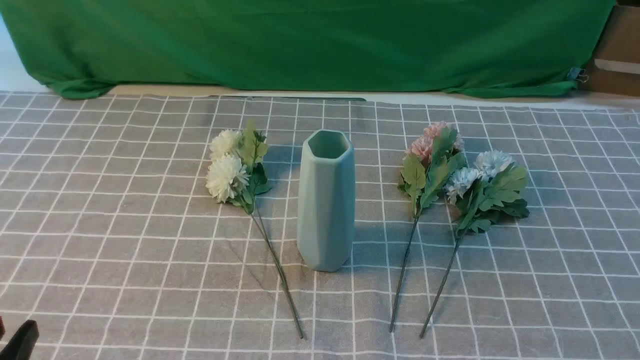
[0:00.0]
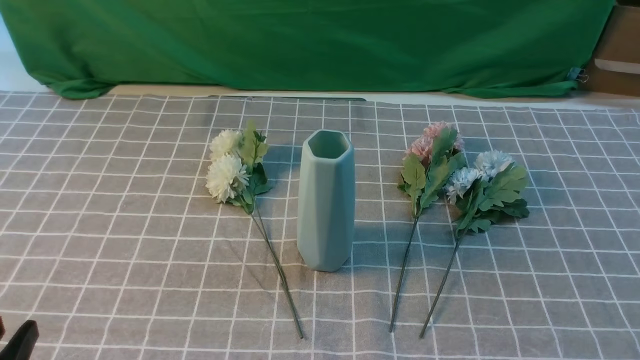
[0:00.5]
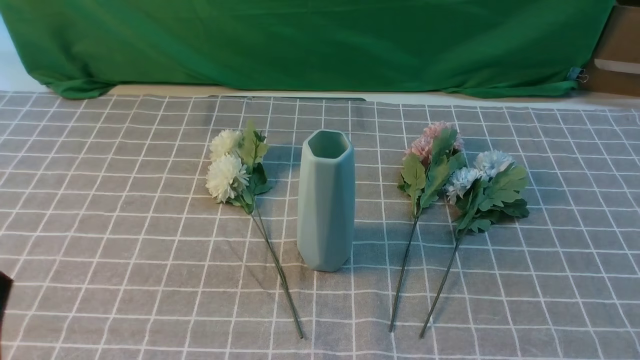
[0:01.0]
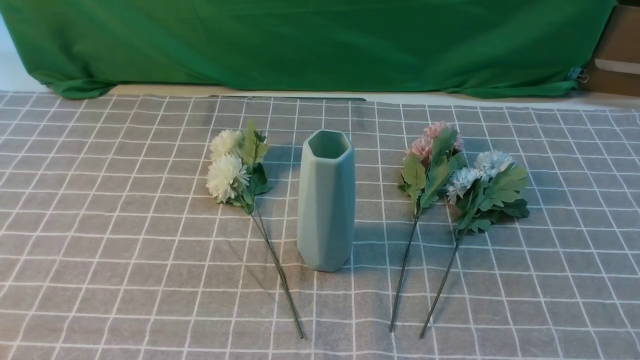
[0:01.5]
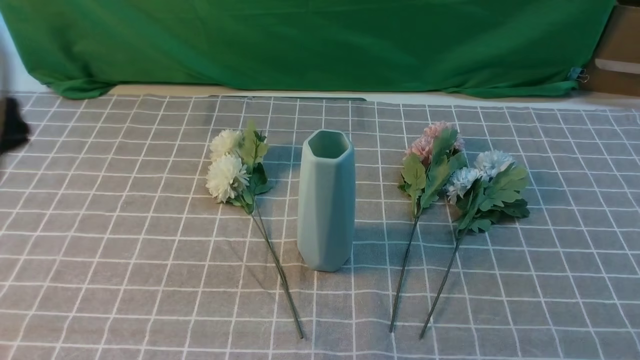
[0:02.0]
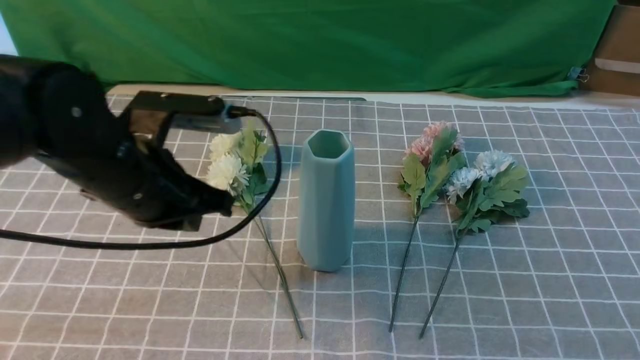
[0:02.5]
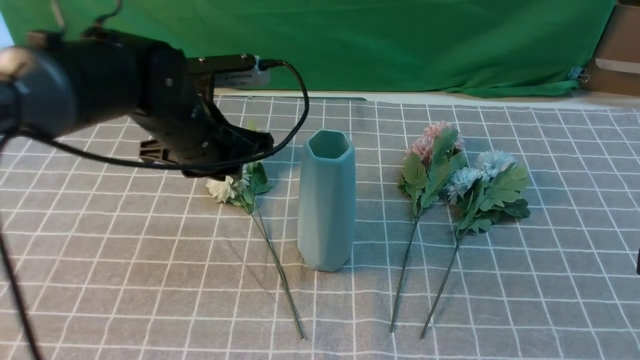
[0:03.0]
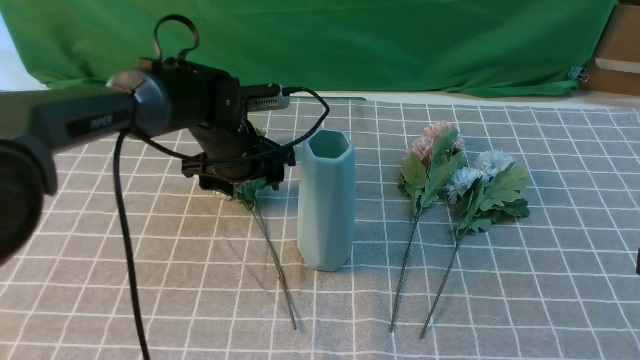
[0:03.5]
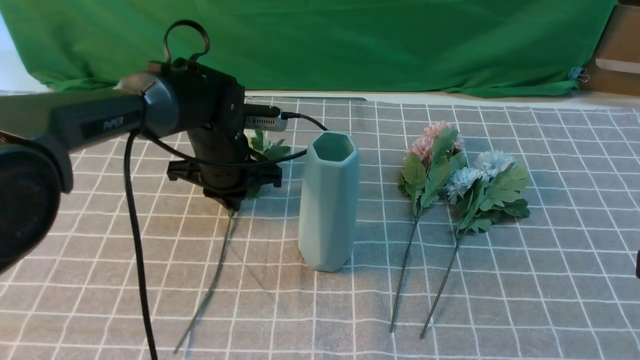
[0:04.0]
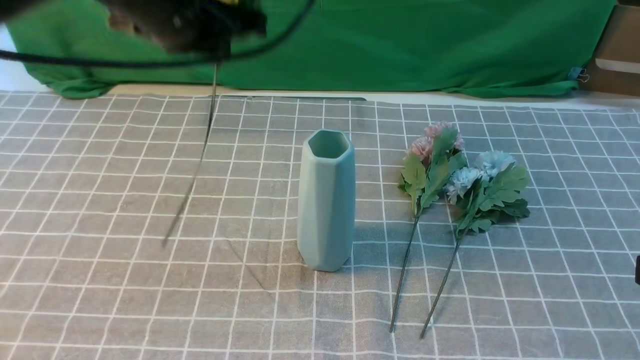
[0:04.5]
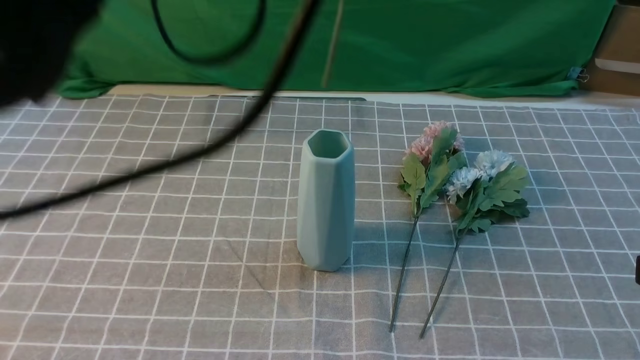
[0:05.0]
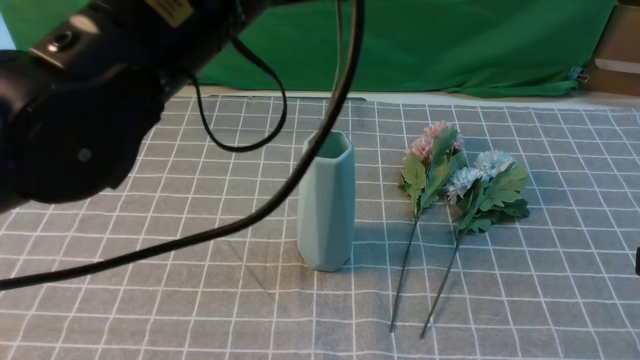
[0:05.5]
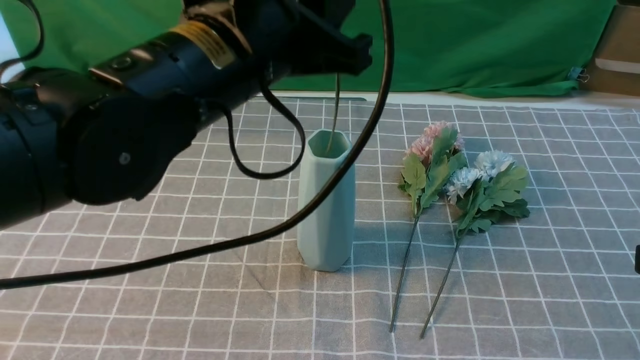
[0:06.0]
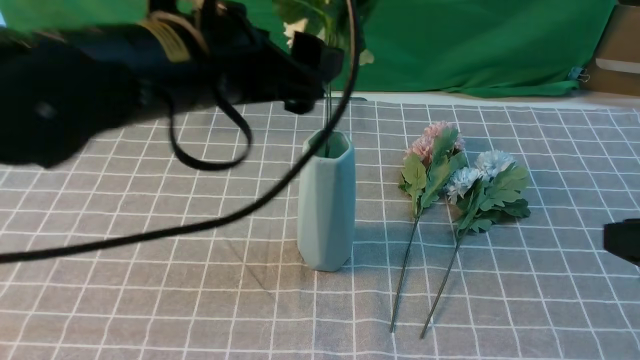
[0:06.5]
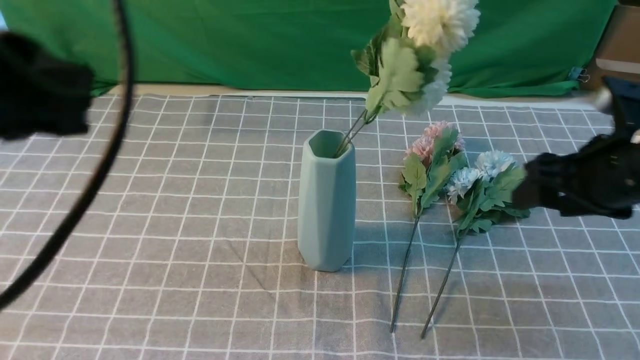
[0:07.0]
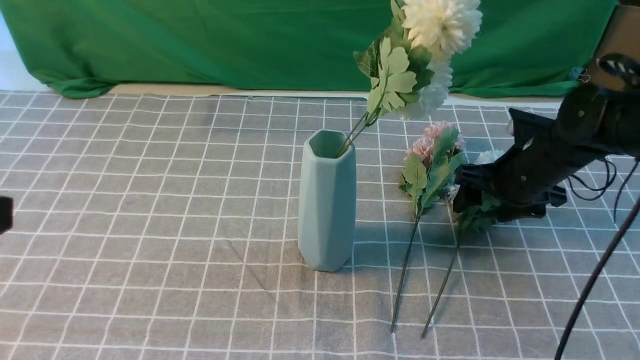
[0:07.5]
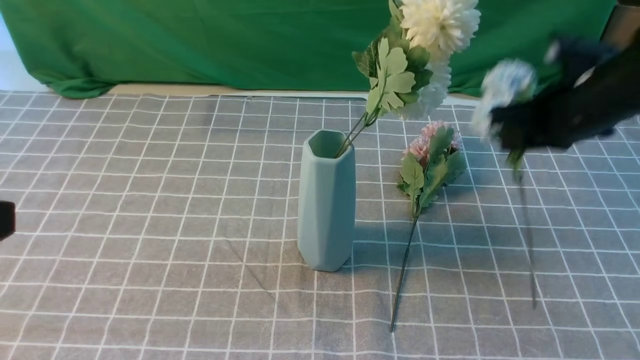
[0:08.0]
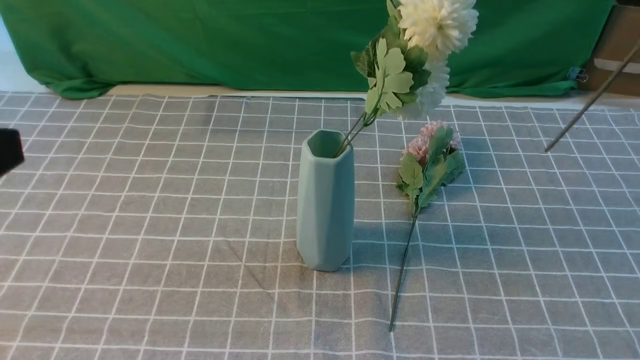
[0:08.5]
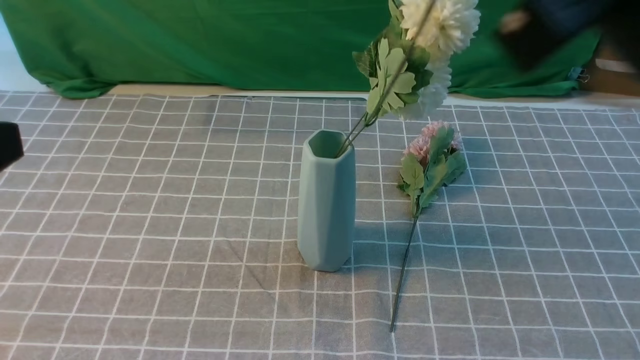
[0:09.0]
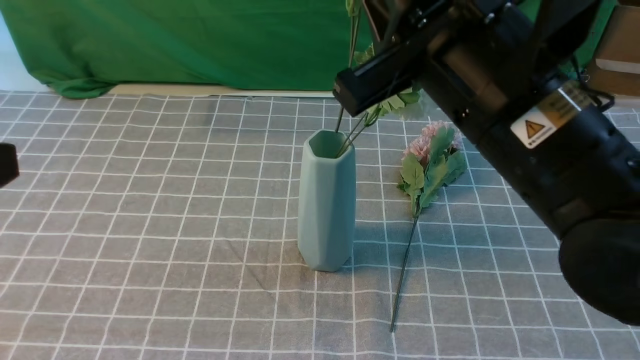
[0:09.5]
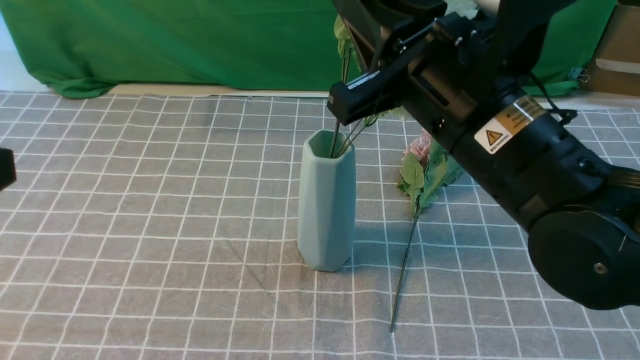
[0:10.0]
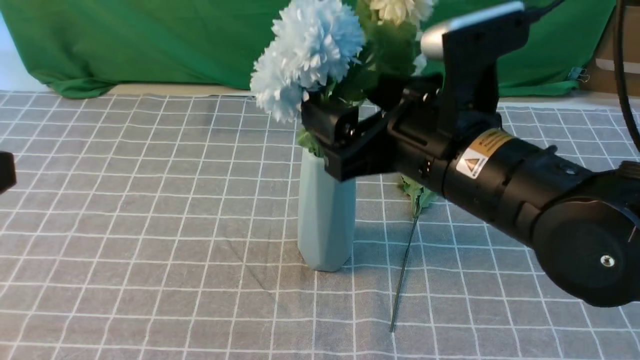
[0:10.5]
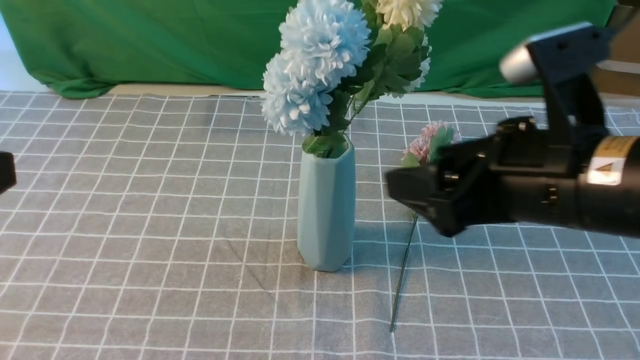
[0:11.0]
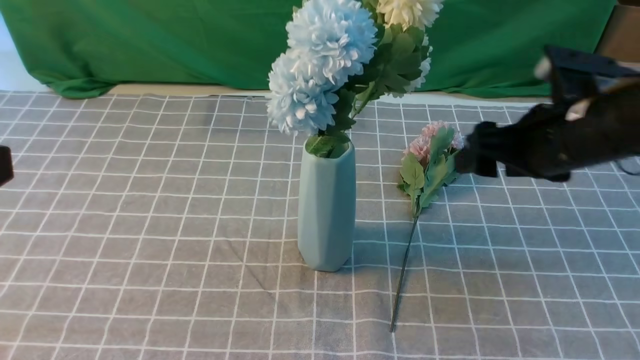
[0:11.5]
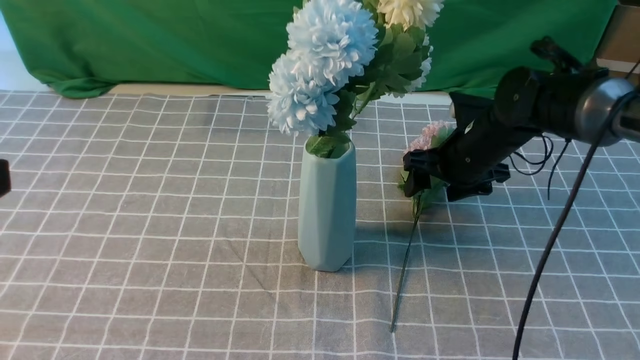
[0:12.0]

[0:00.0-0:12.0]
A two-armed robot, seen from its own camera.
Task of the whole recording: insert the flowers into the vase on the table with the grey tablecloth.
Step, 0:00.0 to 0:03.5: use the left arm to grab a bunch of fresh flowers.
Step, 0:04.0 to 0:06.0: use the left arm to insert the flowers into the vase.
Step, 0:06.5 to 0:07.5: use the right arm to grab a bunch of fresh flowers.
Step, 0:08.0 to 0:10.5: use the right arm to insert the flowers into the vase.
0:00.0 to 0:02.0: The left gripper heads upward and forward, covering about 20 cm, and closes up.
0:02.0 to 0:04.0: The left gripper moves forward, downward and to the right, approximately 35 cm, and opens and closes again. The right gripper moves upward and forward, some 15 cm.
0:04.0 to 0:06.0: The left gripper shifts some 25 cm upward and backward.
0:06.0 to 0:08.0: The right gripper shifts roughly 25 cm forward, and opens, then closes again. Meanwhile the left gripper travels backward and to the left by about 25 cm, and closes.
0:08.0 to 0:10.0: The right gripper travels to the left and backward by roughly 20 cm.
0:10.0 to 0:12.0: The right gripper is displaced forward, downward and to the right by some 25 cm, and opens its fingers.

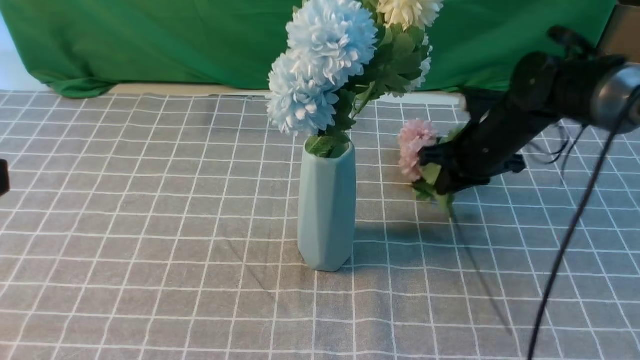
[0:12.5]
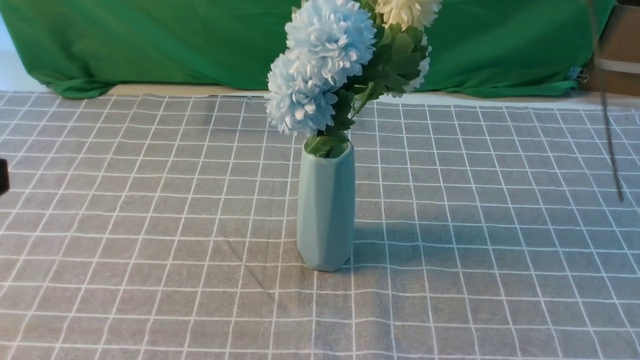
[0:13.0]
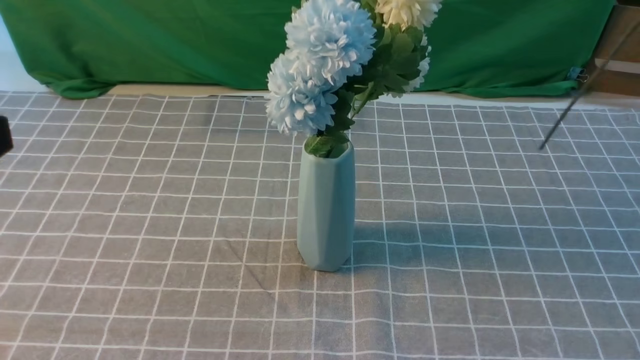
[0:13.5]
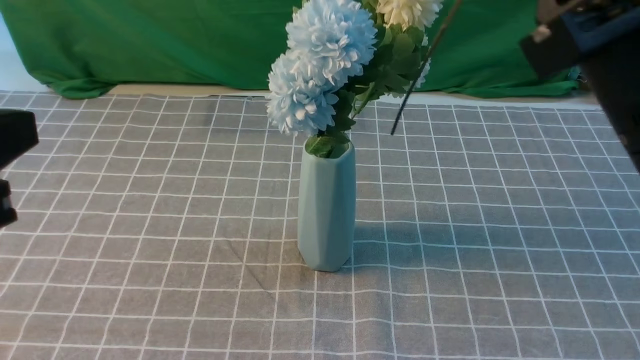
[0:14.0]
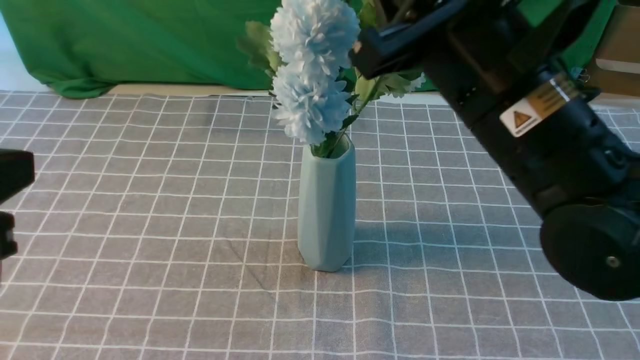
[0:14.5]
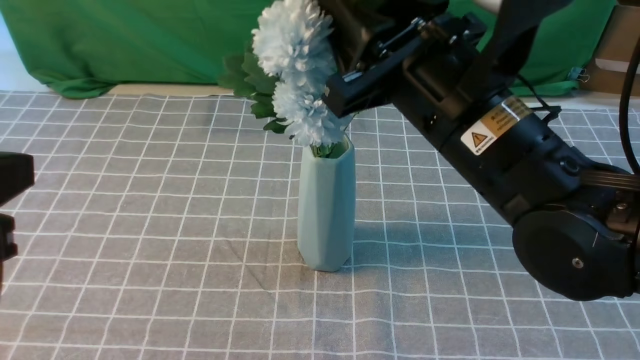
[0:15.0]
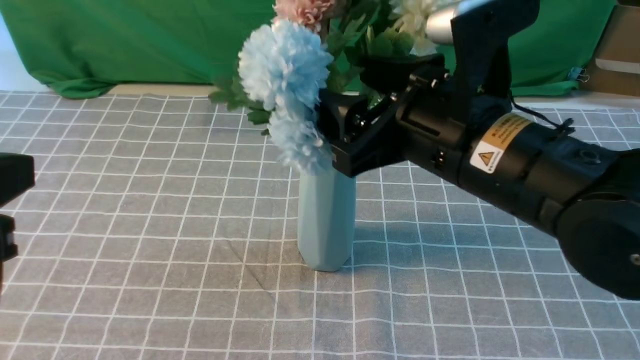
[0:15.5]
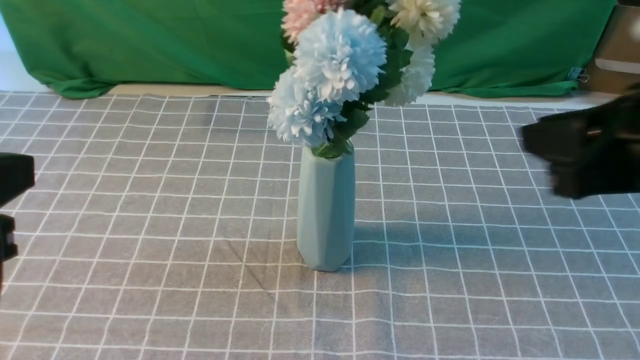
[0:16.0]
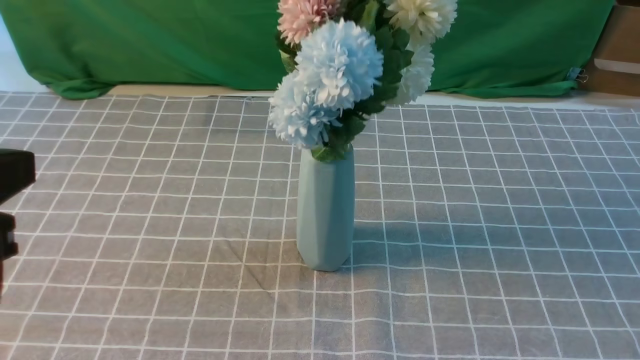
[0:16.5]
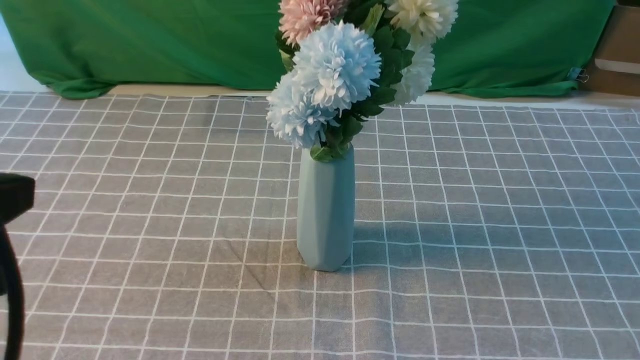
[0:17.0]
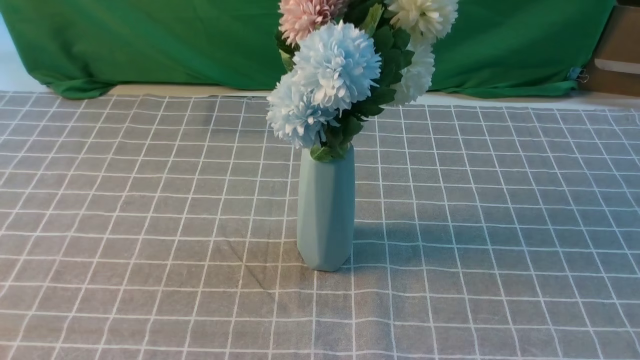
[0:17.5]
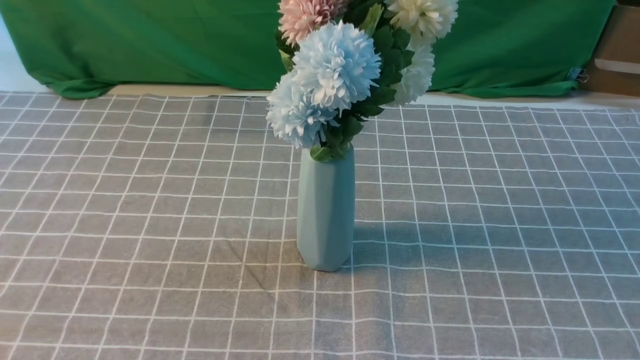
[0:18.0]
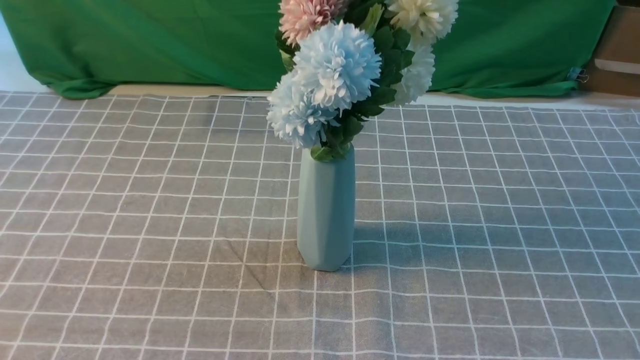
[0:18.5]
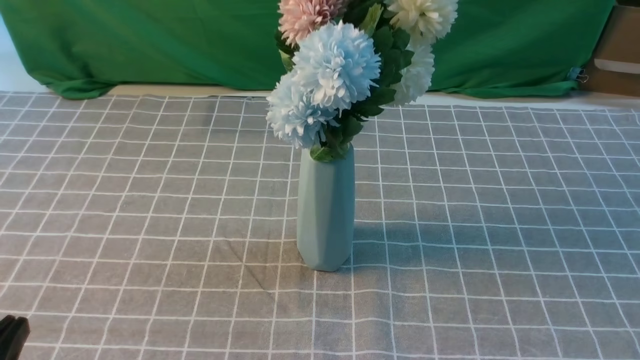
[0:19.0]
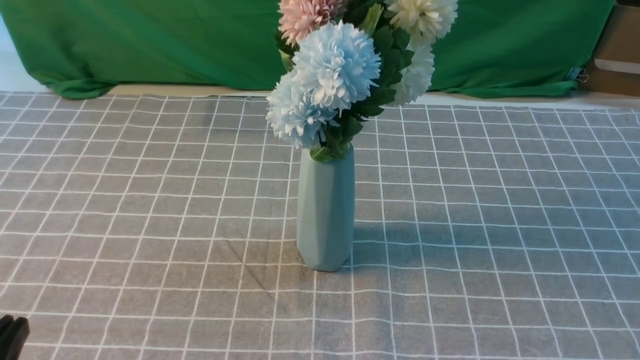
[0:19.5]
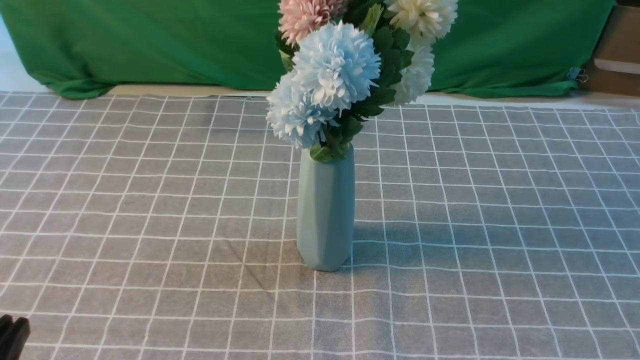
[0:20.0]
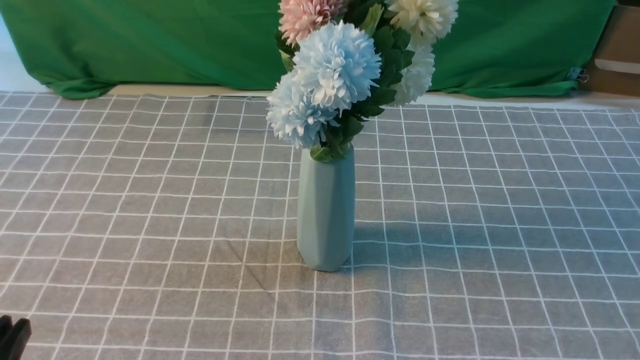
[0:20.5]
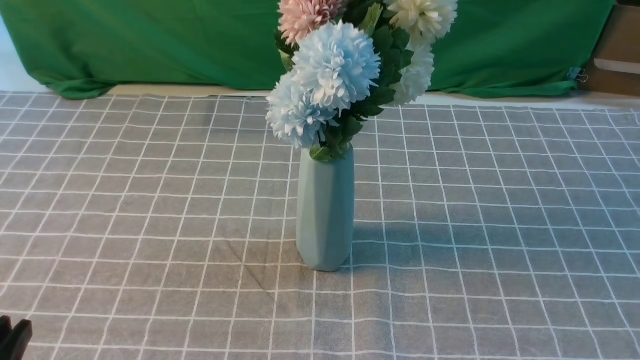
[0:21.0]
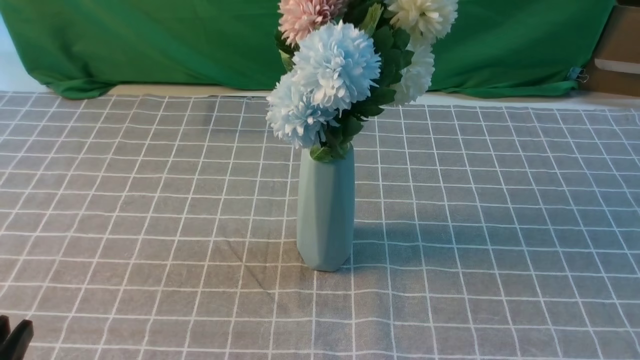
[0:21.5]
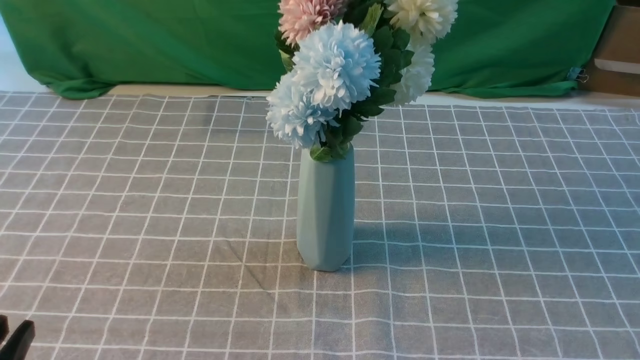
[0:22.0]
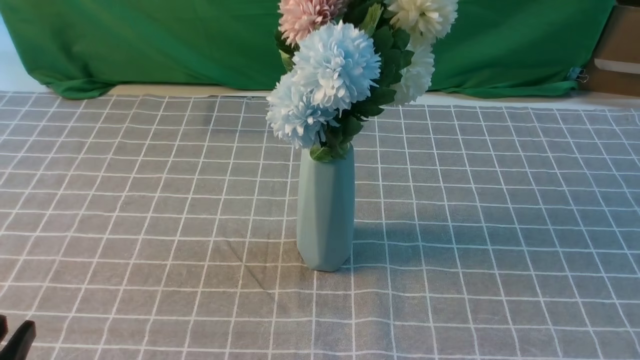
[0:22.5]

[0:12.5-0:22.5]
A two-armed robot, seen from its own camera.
Task of the whole recording: insert the flowers into the vase on the table with the grey tablecloth.
Step, 0:12.5 to 0:15.5: use the right arm to insert the flowers into the vase.
0:12.5 to 0:14.5: The right gripper shifts about 25 cm backward, upward and to the left.
0:14.5 to 0:16.5: The right gripper goes roughly 25 cm to the right and backward, and opens, then closes again.
0:16.5 to 0:18.5: The left gripper moves downward, approximately 15 cm. The right gripper changes place by some 5 cm.
